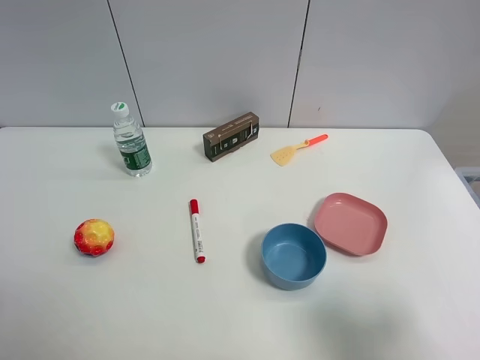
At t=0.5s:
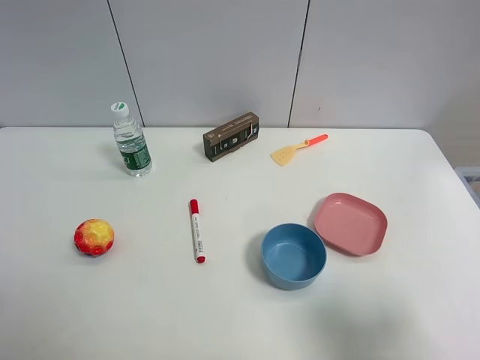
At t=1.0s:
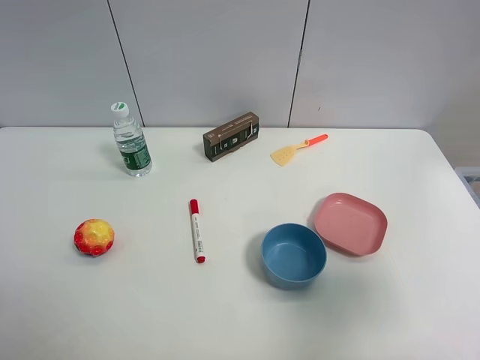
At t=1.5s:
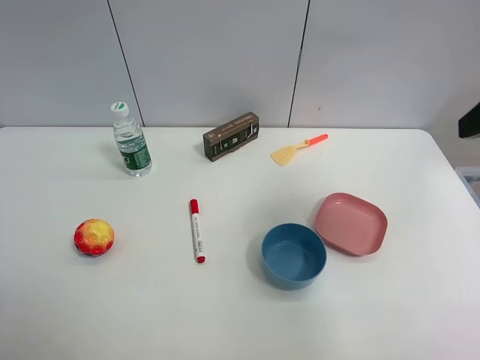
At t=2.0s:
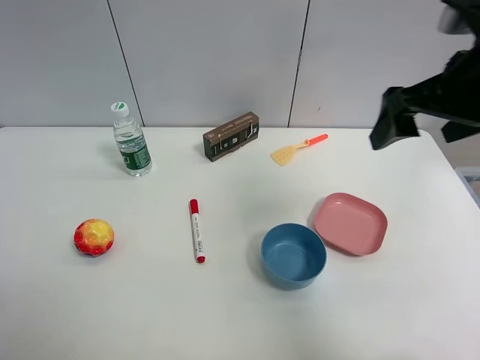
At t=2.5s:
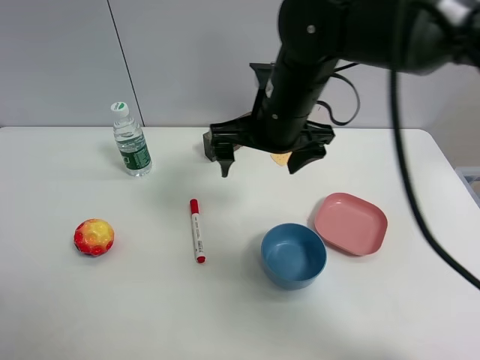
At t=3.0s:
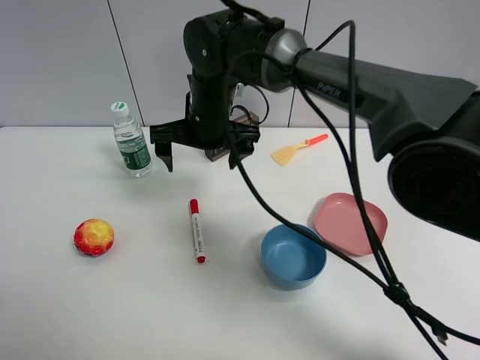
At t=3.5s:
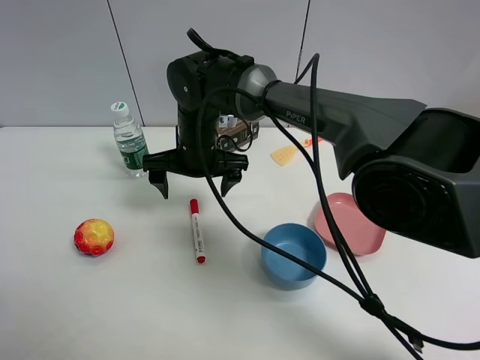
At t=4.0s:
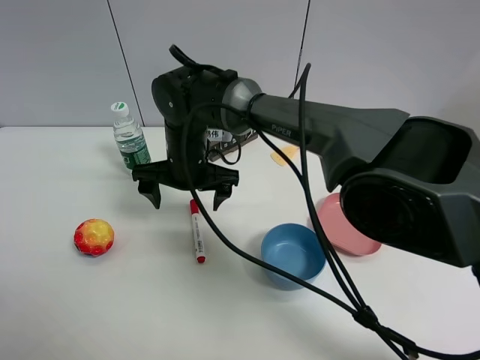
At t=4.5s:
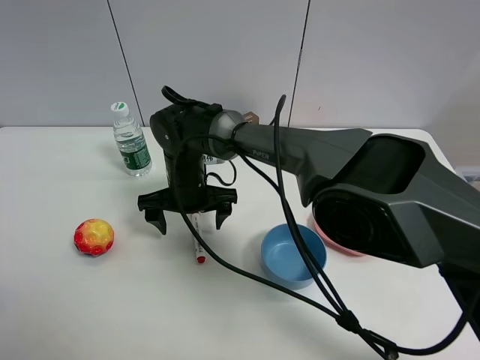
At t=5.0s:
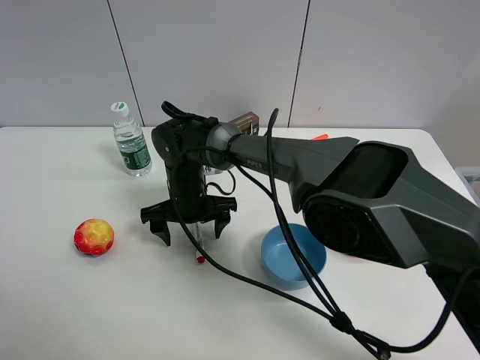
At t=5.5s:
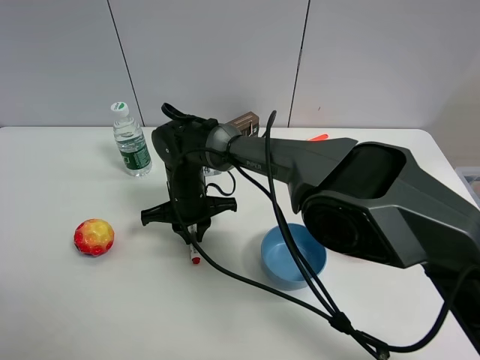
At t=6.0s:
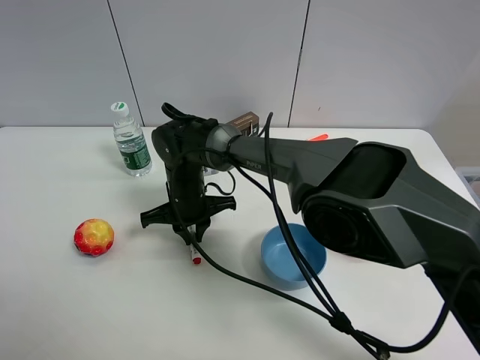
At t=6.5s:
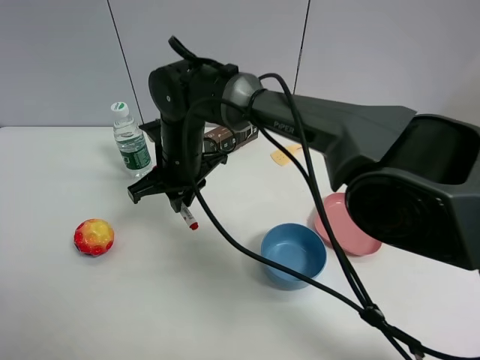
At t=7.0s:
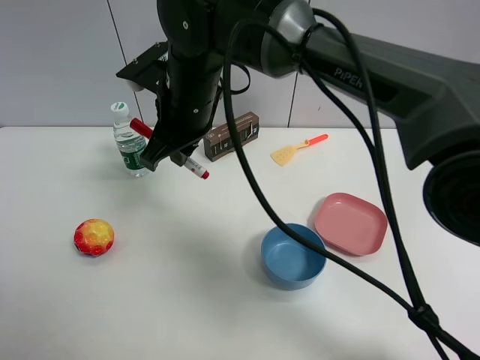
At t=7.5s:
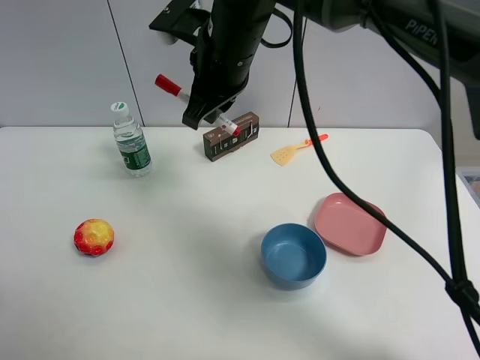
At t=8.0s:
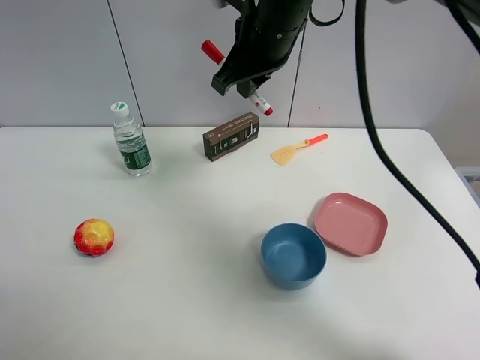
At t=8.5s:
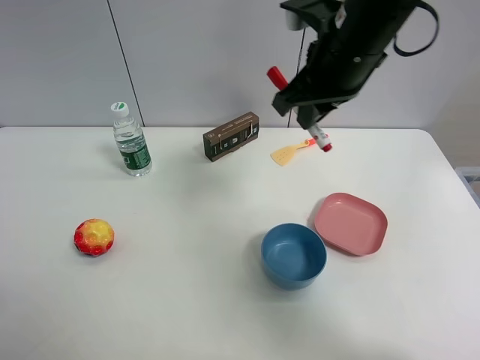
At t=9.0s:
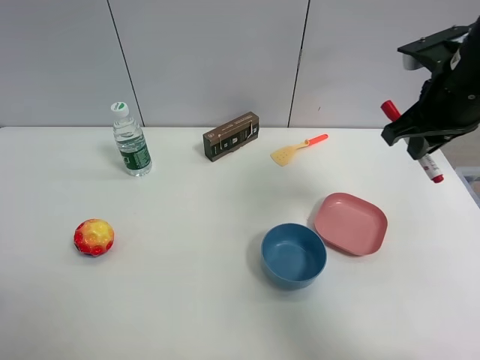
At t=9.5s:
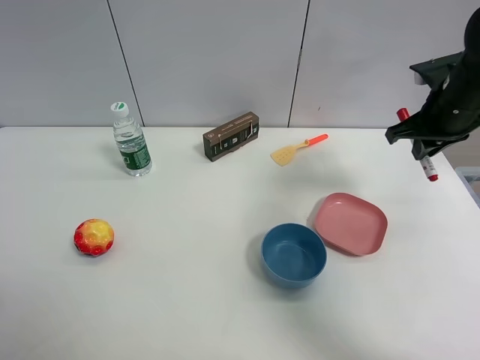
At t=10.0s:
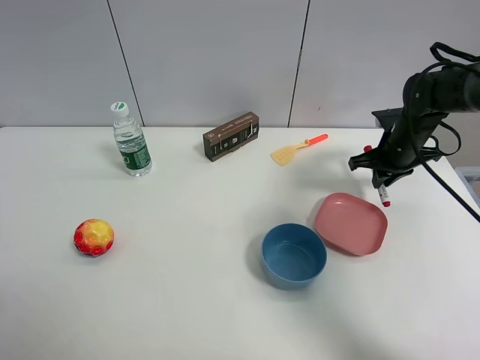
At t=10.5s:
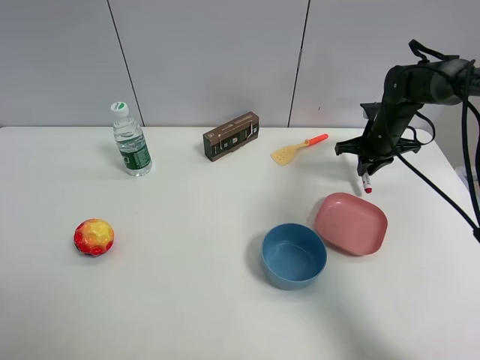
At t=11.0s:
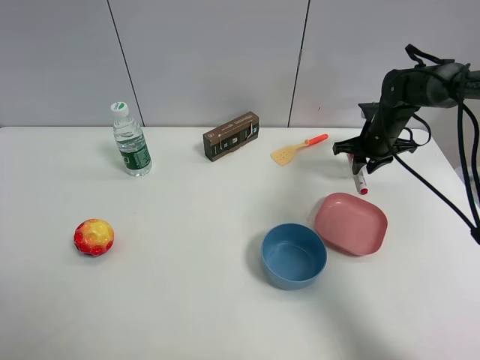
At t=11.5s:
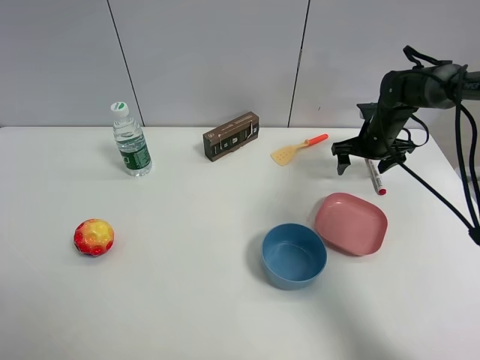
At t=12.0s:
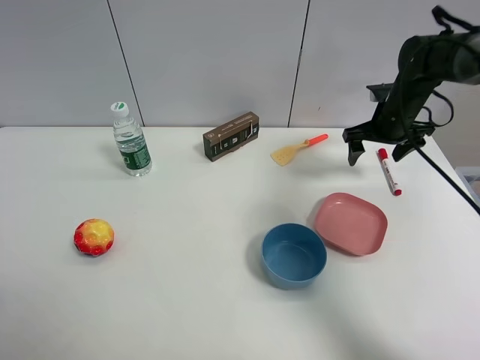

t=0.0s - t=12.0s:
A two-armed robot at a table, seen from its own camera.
Task of the whole recording: the gripper move the object.
Step, t=0.0s - t=5.5s: Grasp the red marker pen cwith the right gripper.
Step, t=6.0s - t=11.0s: Place the red marker pen on the table with the right gripper.
t=2.0s - t=4.0s: The right gripper goes roughly 35 cm to the left and downward.
t=4.0s - t=6.0s: The right gripper moves downward, some 10 cm, and closes.
t=6.0s - t=8.0s: The right gripper travels upward and to the right by about 30 cm.
t=8.0s - t=10.0s: The right gripper moves to the right and downward, about 30 cm.
t=10.0s - t=12.0s: The right gripper opens.

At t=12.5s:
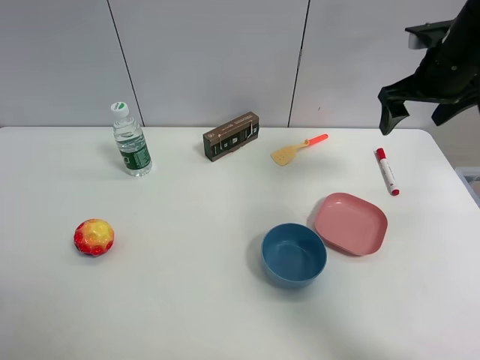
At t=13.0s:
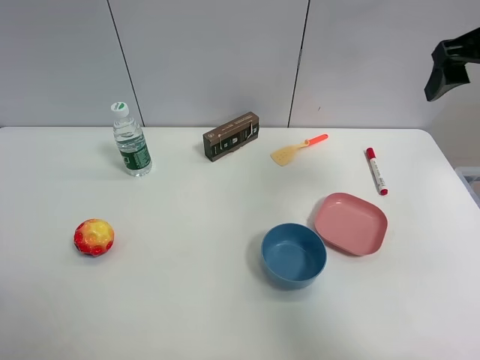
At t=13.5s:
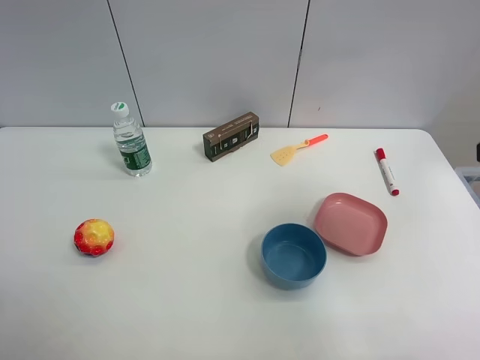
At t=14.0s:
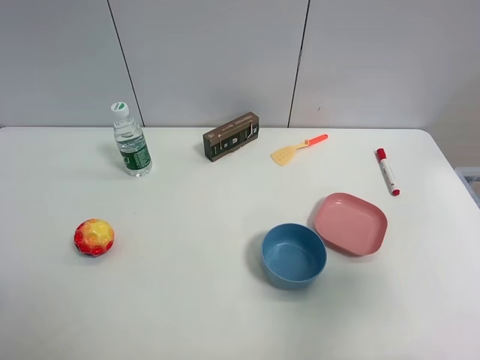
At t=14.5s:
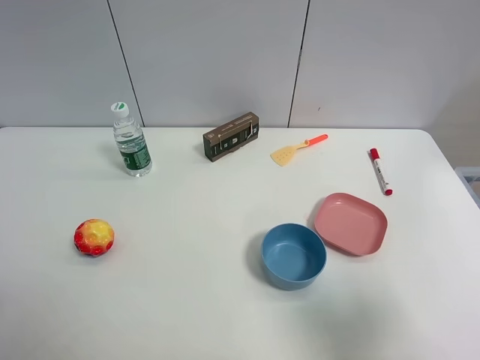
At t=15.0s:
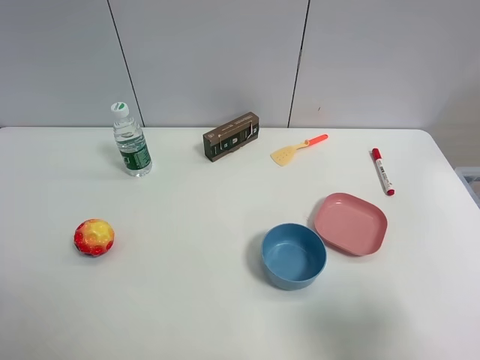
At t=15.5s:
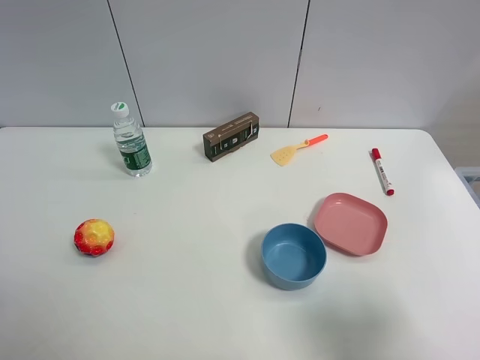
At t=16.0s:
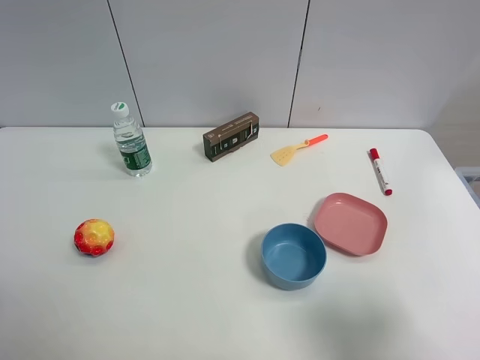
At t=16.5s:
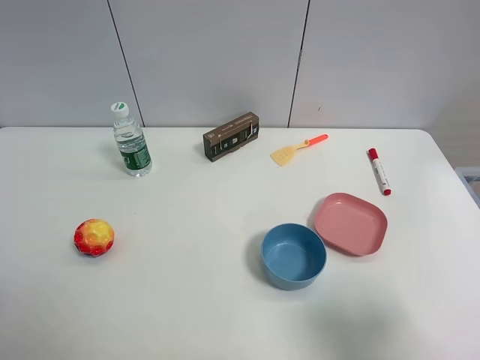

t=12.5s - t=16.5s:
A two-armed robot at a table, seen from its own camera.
Task of the whole recording: the gripper move the object.
t=12.5s - t=14.5s: The right gripper is displaced backward by roughly 40 cm.

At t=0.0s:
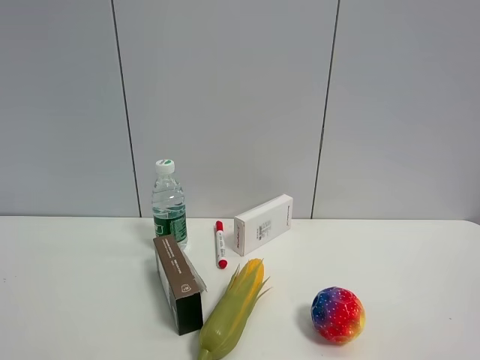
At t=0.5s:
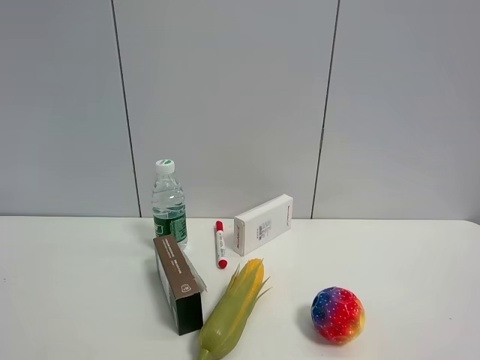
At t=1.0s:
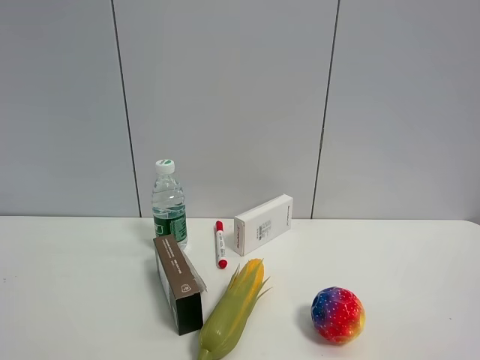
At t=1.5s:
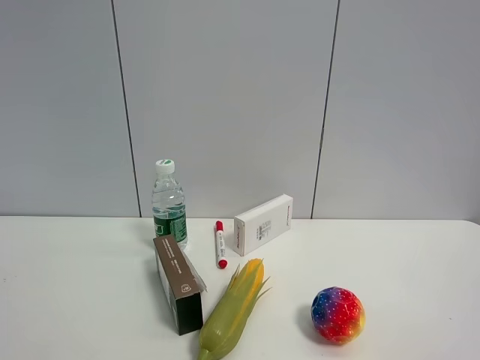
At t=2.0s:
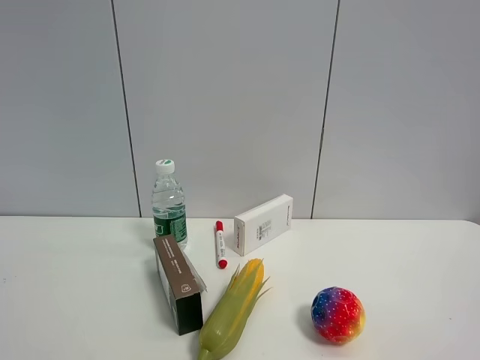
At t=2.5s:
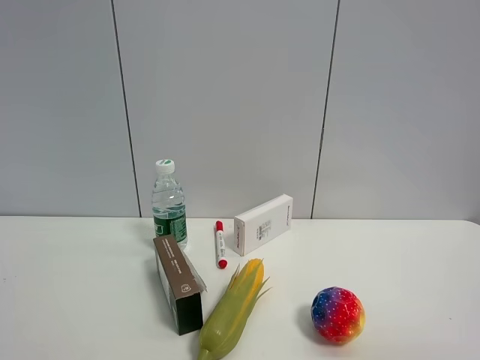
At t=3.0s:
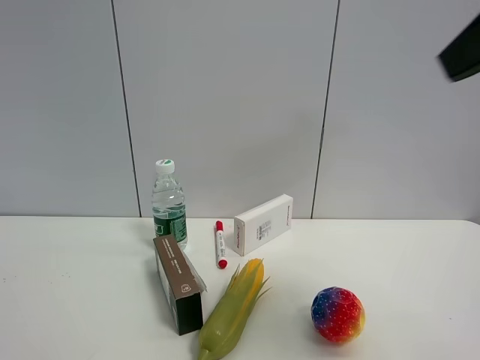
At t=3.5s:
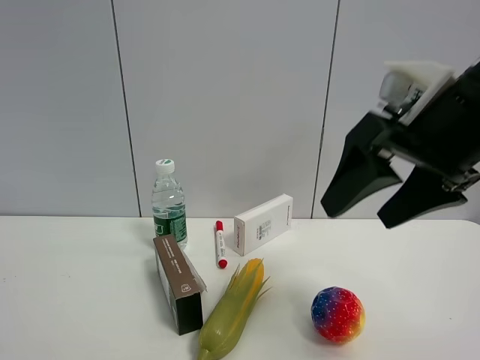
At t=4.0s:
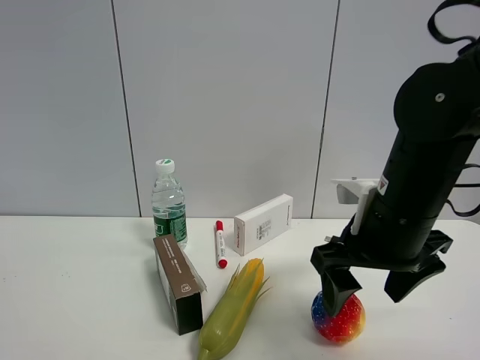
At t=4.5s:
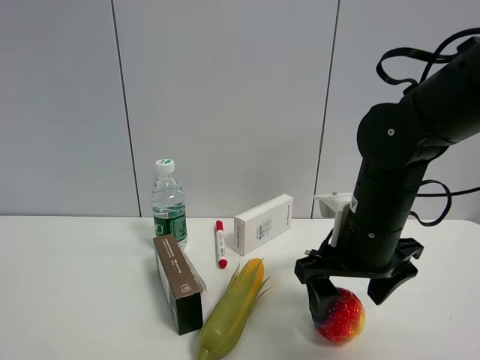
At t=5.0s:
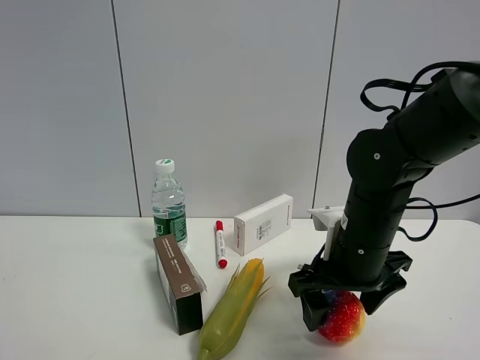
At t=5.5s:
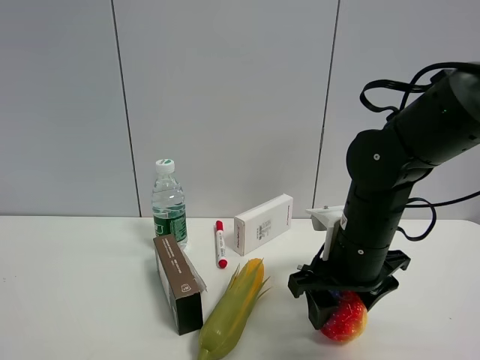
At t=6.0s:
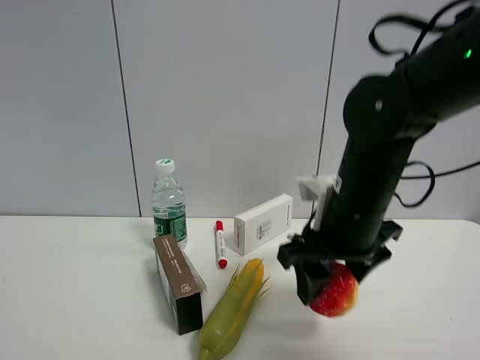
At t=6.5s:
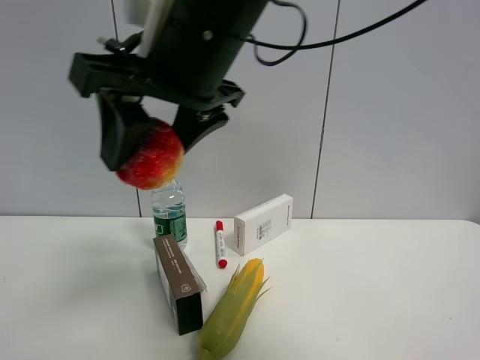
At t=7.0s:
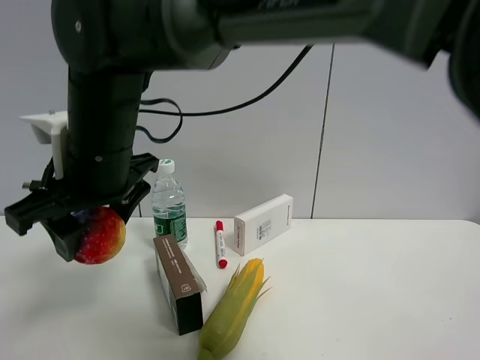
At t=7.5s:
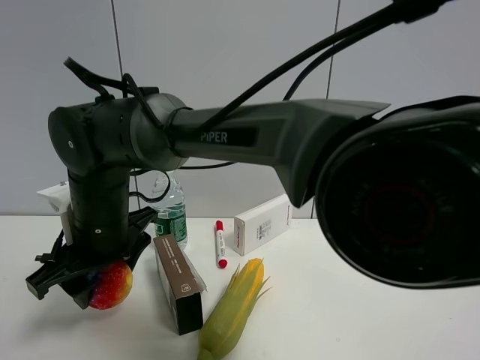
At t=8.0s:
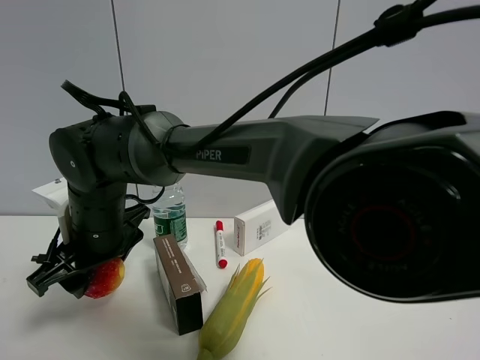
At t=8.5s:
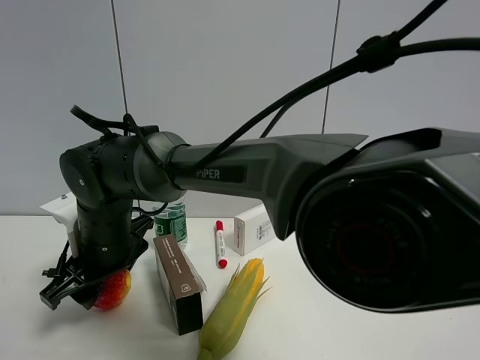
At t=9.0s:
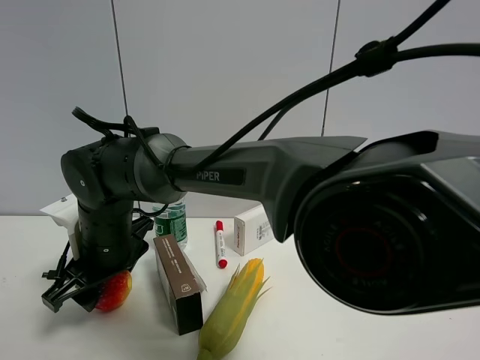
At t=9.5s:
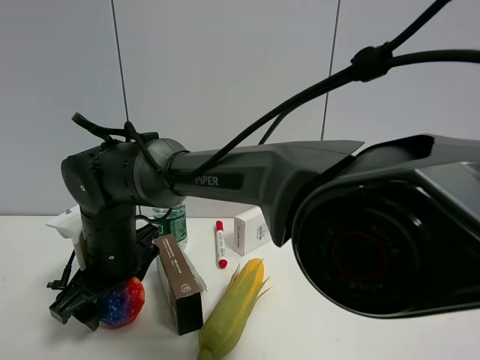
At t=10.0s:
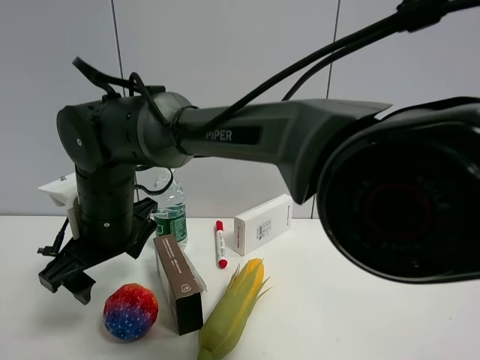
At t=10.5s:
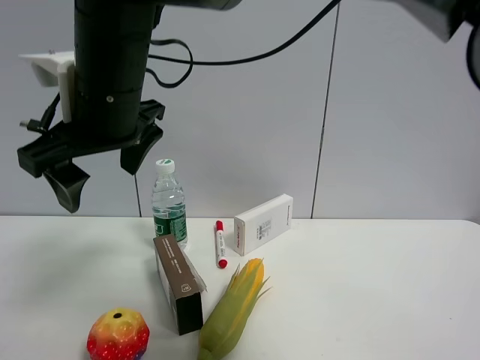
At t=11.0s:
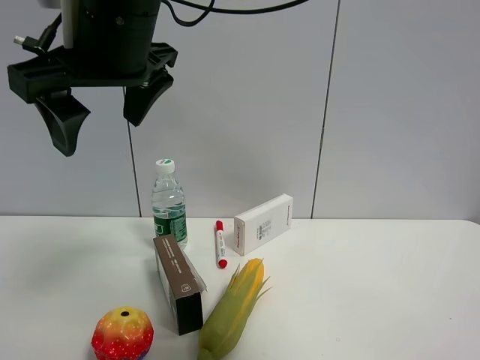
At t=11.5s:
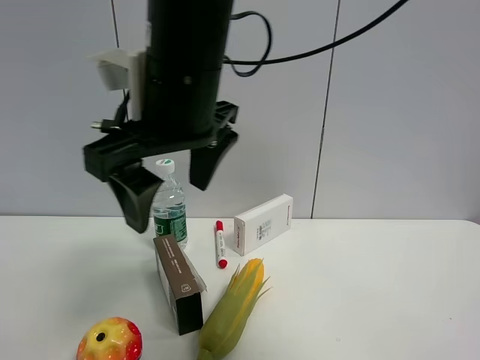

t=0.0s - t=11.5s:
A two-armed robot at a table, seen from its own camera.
Task of the whole recording: the gripper move the object.
Step, t=0.0s - t=5.5s: Grasp the colorful ball with the right gripper.
Step, t=6.0s - t=10.0s: Place the colorful ball on the table with the right gripper.
t=0.0s - t=2.0s: Both grippers stay put.
t=2.0s - t=4.0s: The right gripper heads forward and to the left, covering roughly 30 cm.
t=4.0s - t=6.0s: The right gripper closes its fingers.
t=6.0s - t=7.5s: The right gripper is displaced to the left by roughly 30 cm.
t=7.5s - t=9.5s: The right gripper opens.
t=9.5s - t=11.5s: The right gripper moves upward and to the right, about 20 cm.
